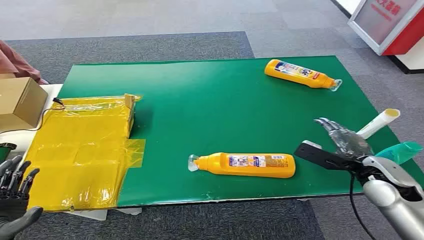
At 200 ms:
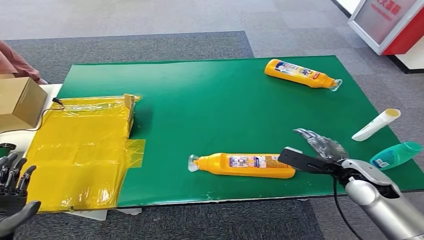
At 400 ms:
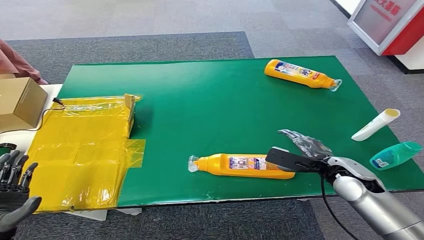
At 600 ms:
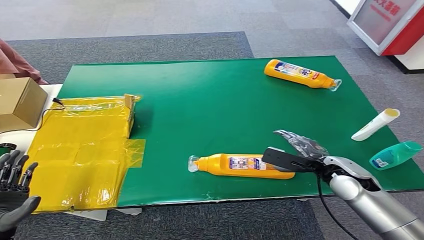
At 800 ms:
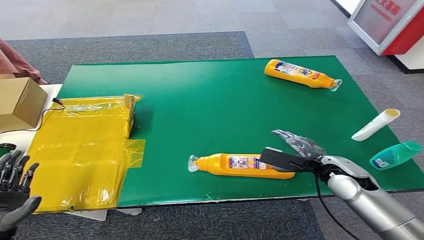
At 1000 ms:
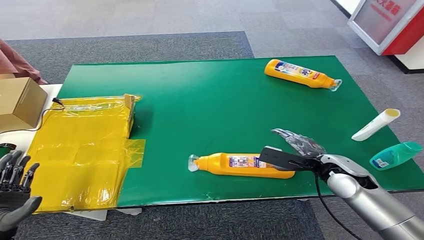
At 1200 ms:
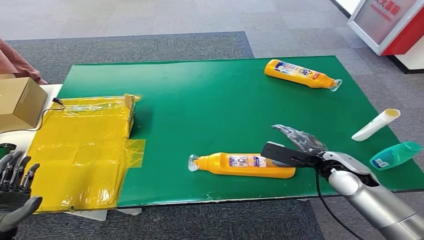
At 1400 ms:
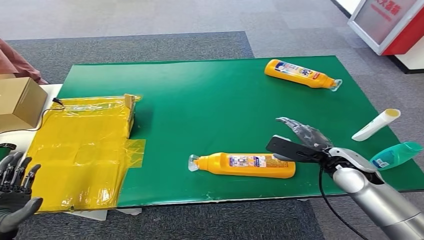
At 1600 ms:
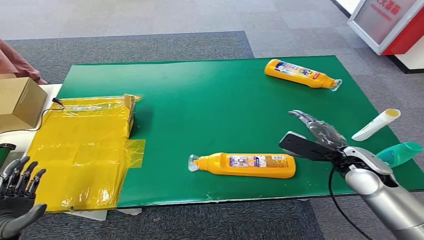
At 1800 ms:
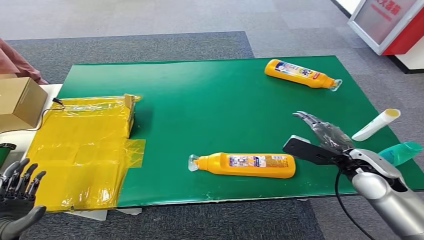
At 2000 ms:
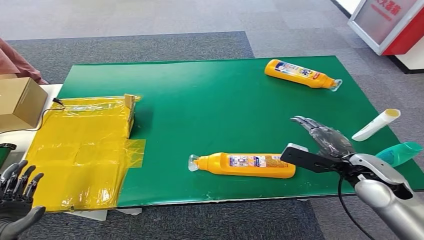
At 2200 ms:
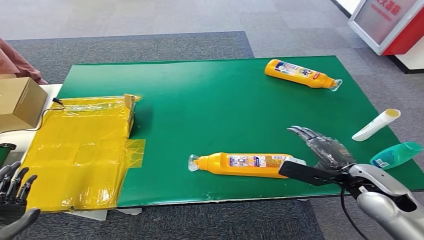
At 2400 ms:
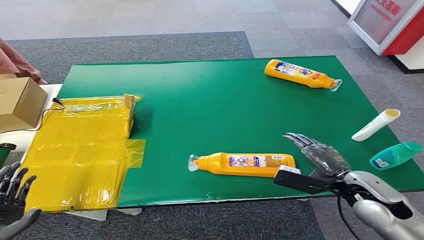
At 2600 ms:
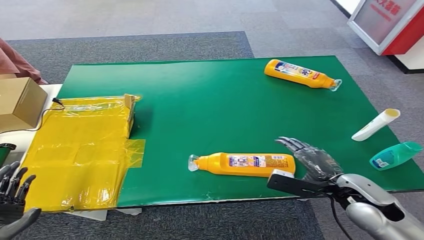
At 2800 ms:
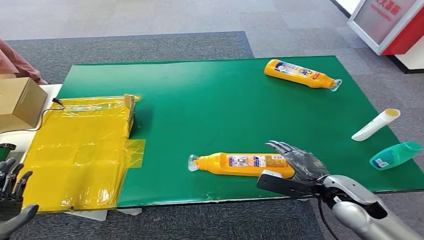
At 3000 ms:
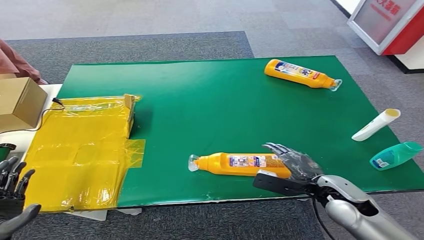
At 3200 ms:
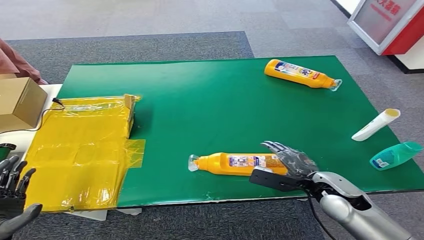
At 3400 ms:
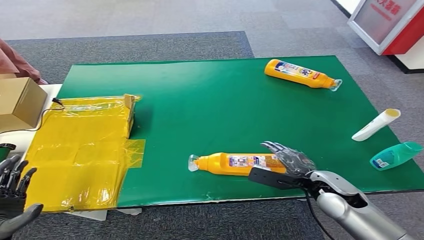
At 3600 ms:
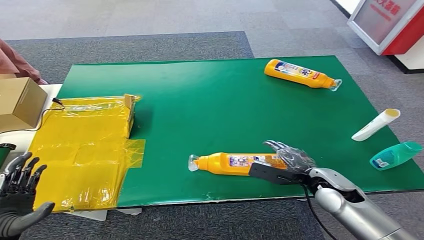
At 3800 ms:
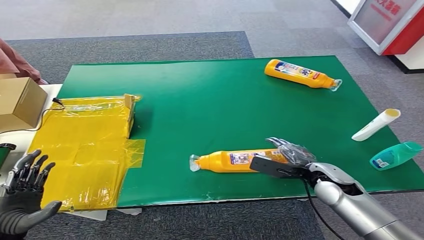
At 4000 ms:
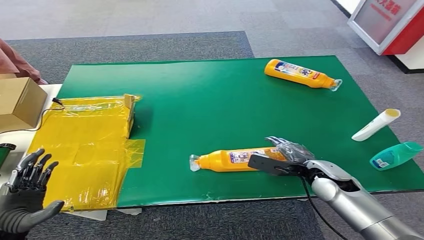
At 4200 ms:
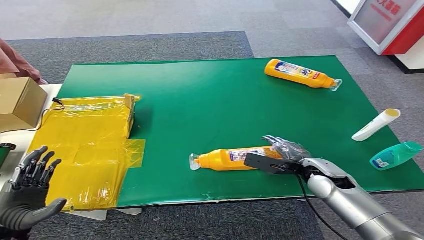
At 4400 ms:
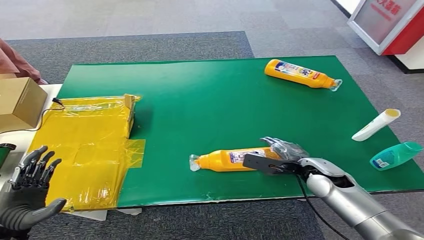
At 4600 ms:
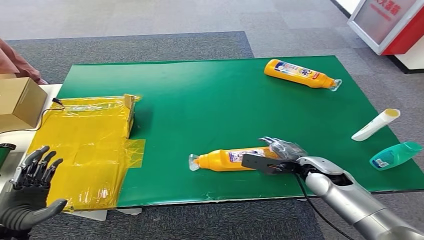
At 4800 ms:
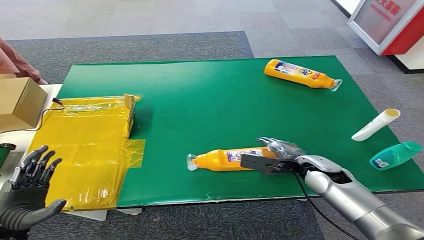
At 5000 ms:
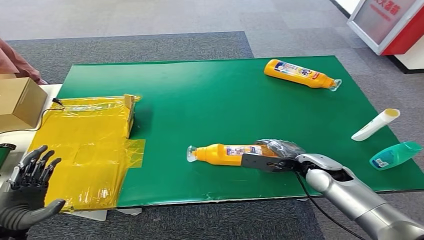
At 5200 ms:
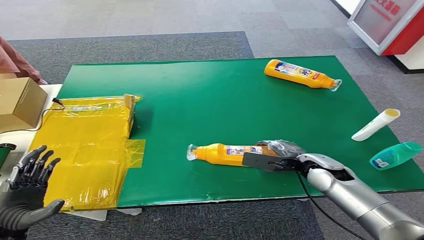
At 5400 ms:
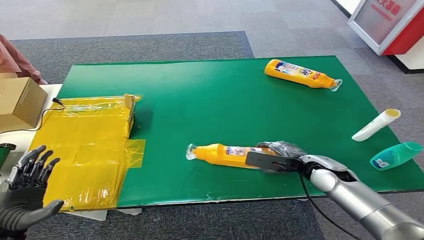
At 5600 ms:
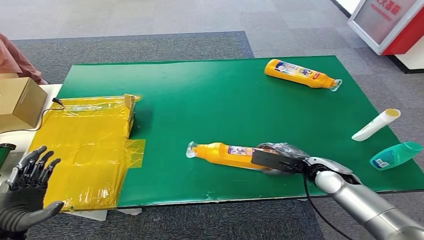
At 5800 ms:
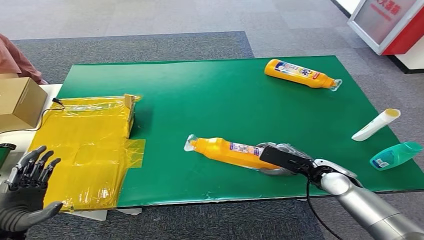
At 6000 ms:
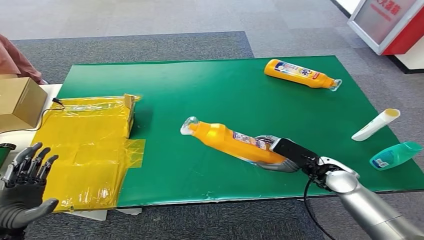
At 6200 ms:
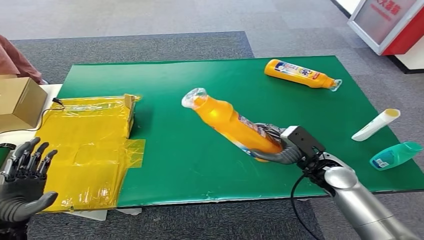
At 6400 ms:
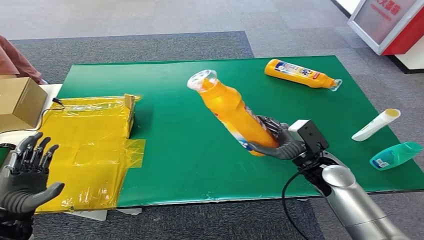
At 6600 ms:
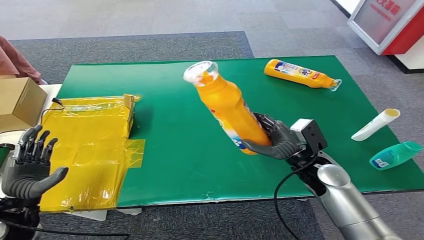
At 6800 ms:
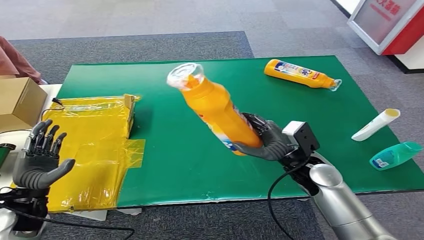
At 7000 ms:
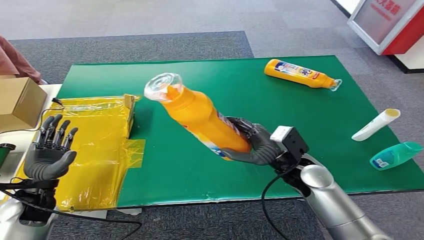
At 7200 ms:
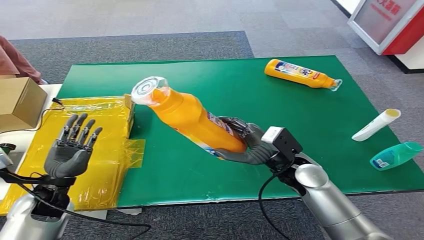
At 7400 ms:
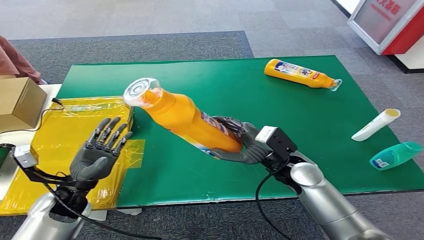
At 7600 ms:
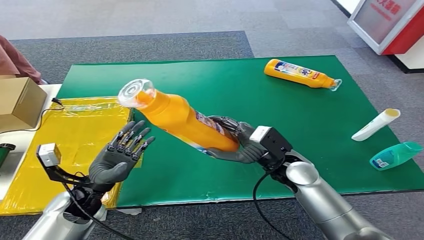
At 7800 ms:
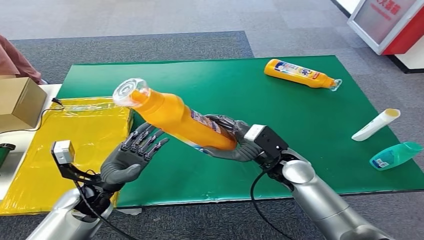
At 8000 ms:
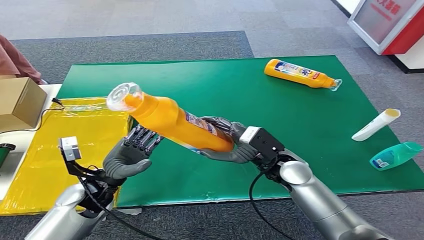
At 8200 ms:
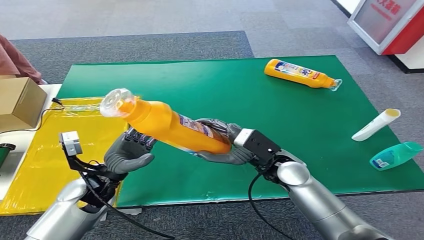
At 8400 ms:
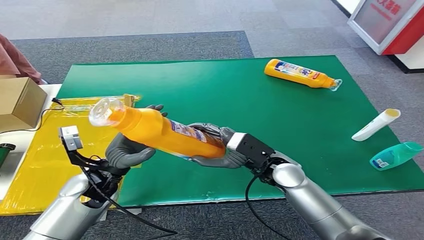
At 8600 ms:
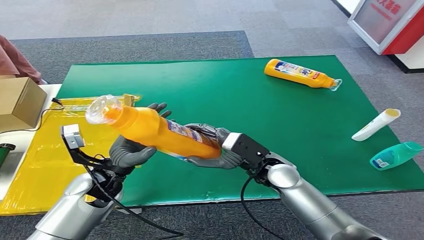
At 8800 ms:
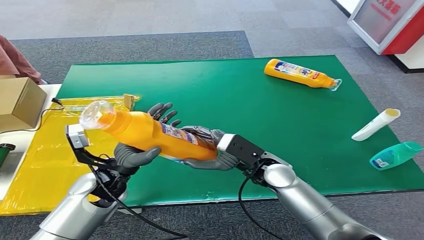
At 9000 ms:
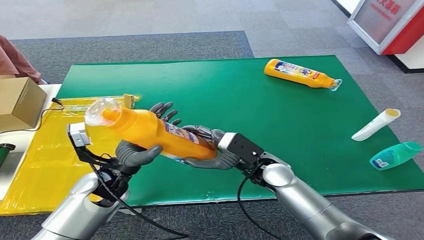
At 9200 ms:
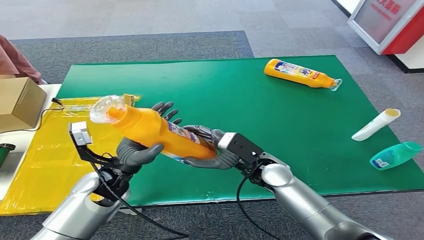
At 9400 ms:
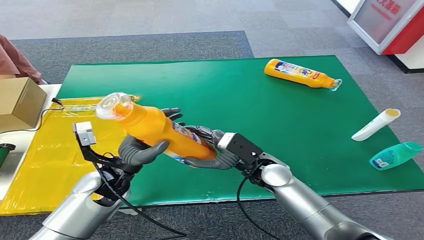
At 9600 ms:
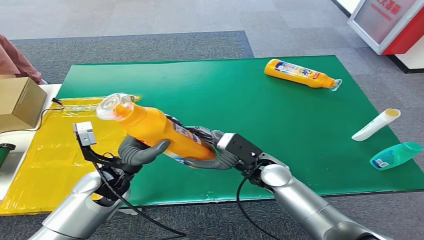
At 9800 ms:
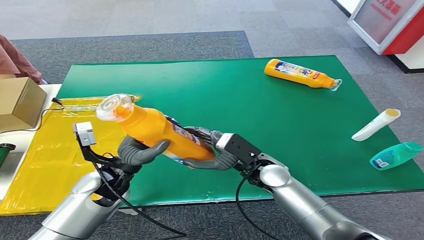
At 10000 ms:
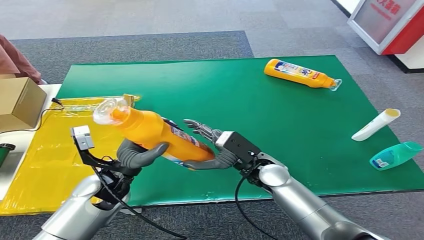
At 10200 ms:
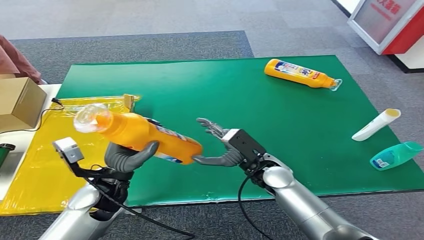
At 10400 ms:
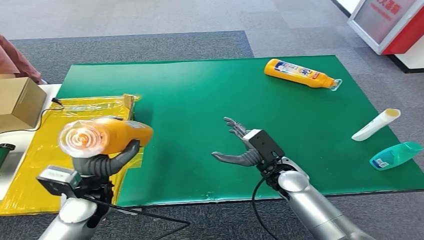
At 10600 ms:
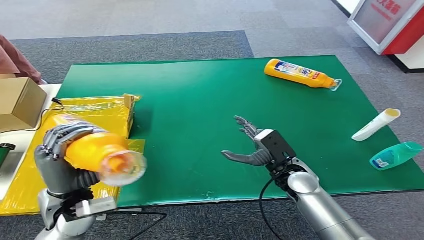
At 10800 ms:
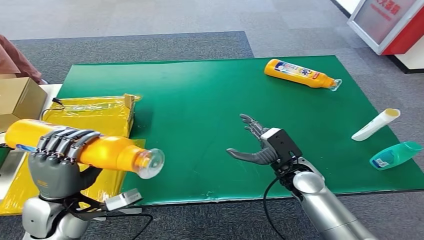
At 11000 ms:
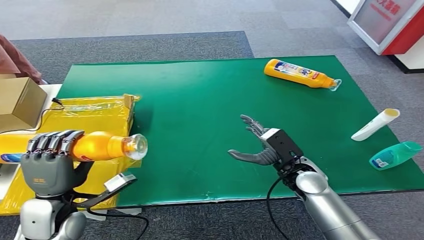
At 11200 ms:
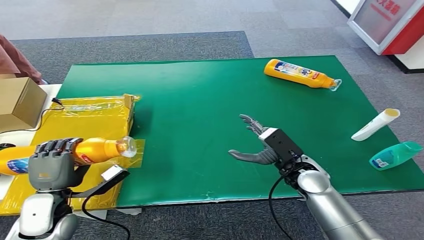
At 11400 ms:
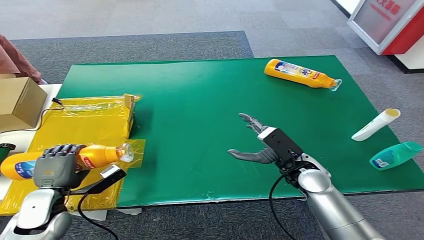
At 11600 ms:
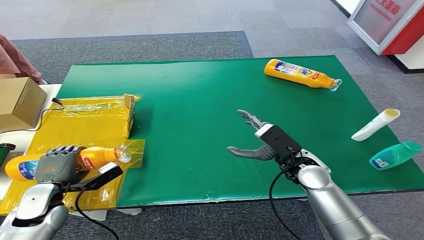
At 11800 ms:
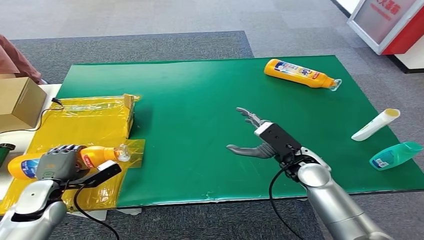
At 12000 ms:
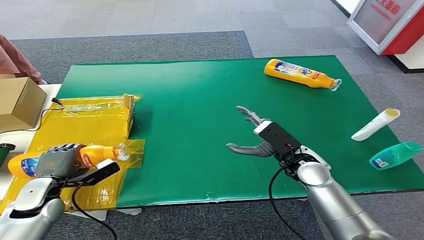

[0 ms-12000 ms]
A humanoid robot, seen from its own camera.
Step, 0 ms to 6000 ms: Pick up the bottle from the table.
1600 ms to 3000 ms: The right hand shifts approximately 5 cm backward.
3000 ms to 4400 ms: The right hand goes about 5 cm forward.
7600 ms to 9000 ms: The left hand goes about 5 cm to the right.
9000 ms to 10400 ms: The right hand moves about 5 cm.
10400 ms to 12000 ms: The left hand goes approximately 15 cm to the left and downward, while the right hand moves roughly 5 cm.

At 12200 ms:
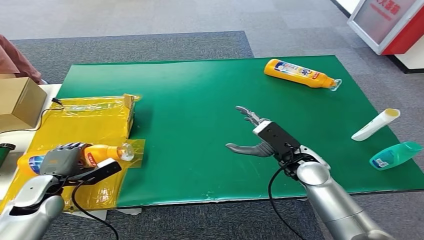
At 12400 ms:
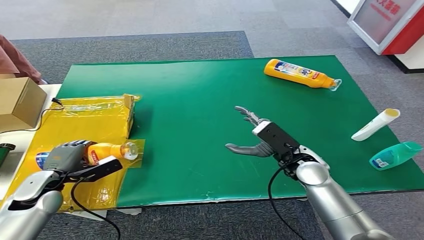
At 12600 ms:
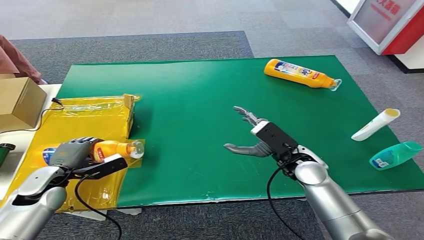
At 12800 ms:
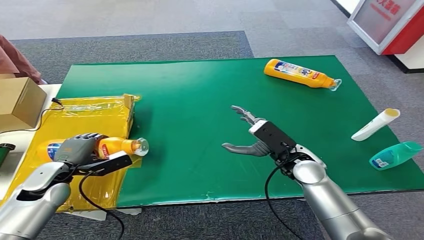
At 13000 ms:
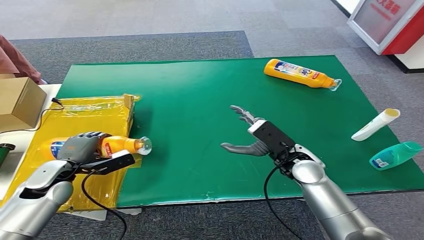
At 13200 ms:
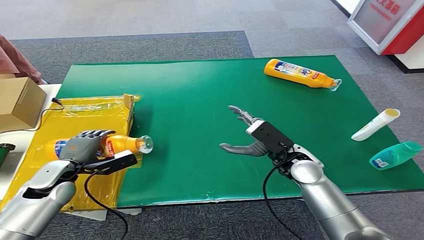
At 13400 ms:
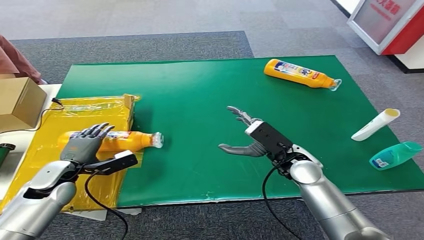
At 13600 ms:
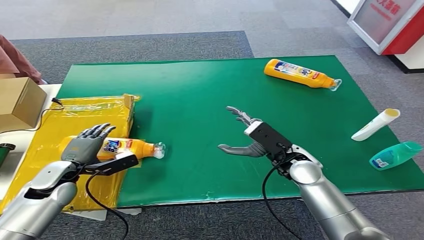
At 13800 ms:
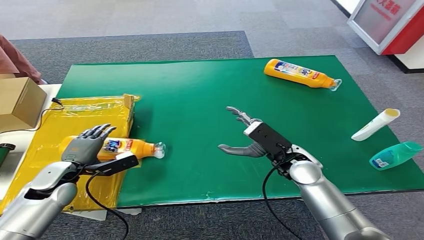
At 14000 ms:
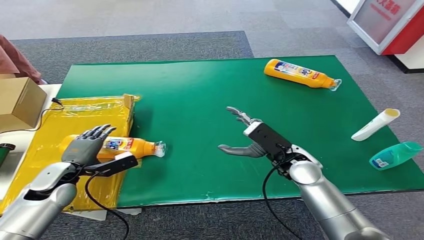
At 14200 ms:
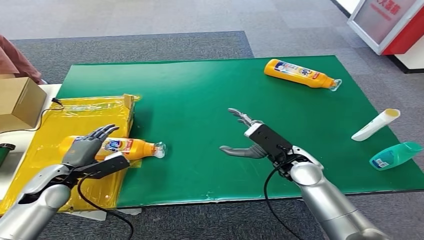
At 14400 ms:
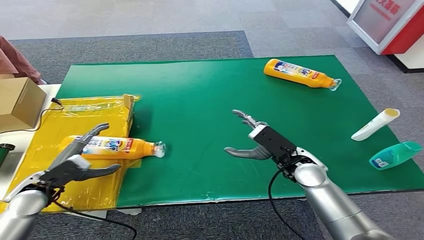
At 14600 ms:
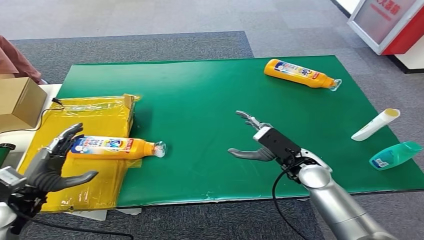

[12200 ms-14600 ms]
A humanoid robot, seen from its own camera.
Step, 12200 ms to 14600 ms: Turn the bottle to the front side.
12200 ms to 13400 ms: The left hand moves approximately 5 cm.
13400 ms to 14600 ms: The left hand shifts roughly 5 cm backward.

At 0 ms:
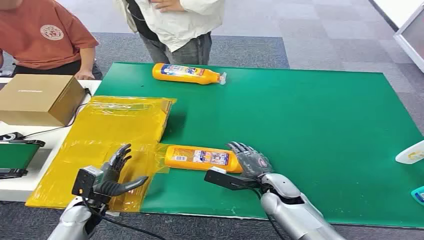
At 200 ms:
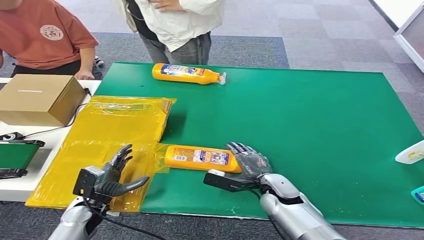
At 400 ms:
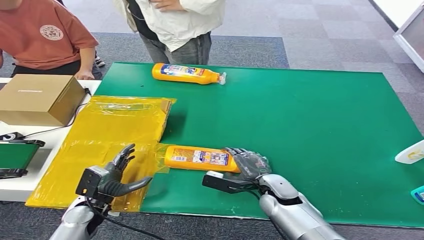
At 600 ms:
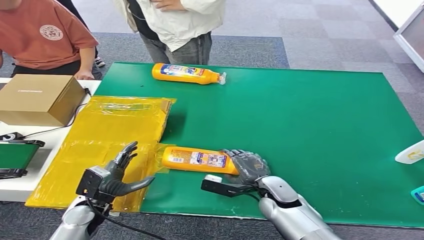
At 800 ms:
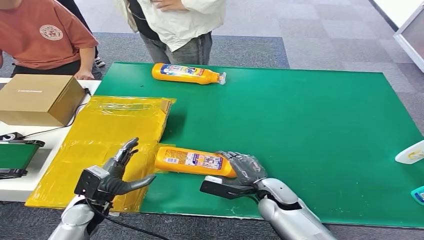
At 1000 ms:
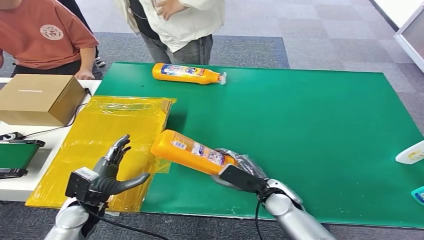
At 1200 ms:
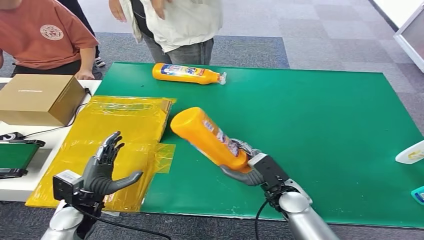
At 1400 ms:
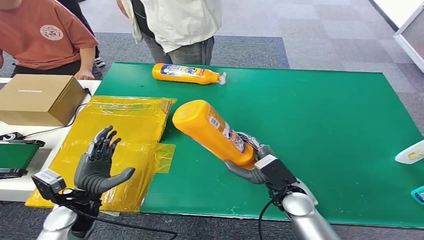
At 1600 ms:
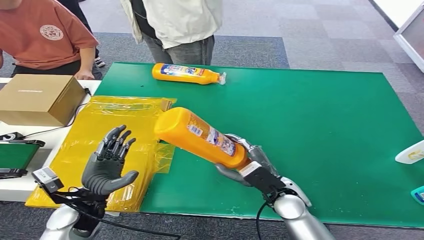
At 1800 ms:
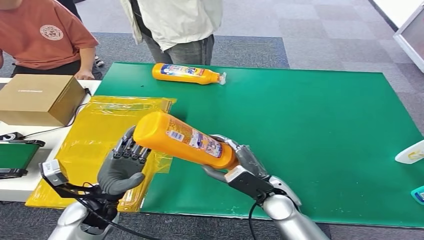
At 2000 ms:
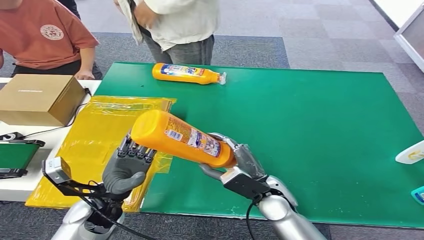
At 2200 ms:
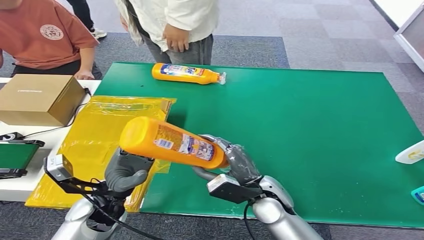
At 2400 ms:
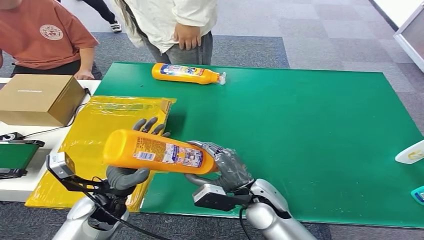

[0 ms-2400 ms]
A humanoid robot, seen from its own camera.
Step, 0 ms to 1200 ms: Pick up the bottle from the table.
